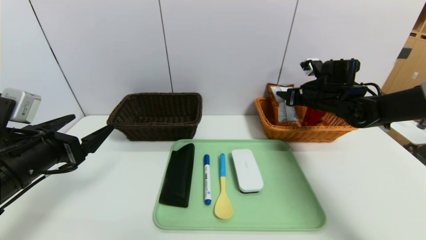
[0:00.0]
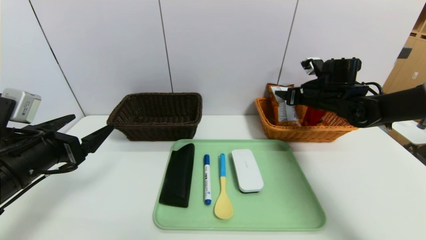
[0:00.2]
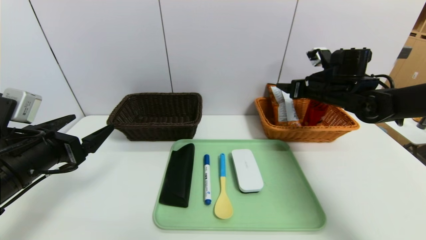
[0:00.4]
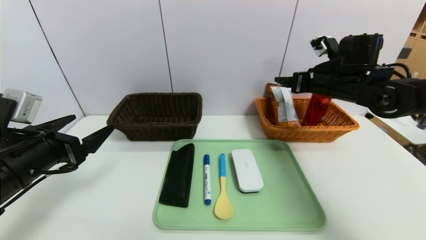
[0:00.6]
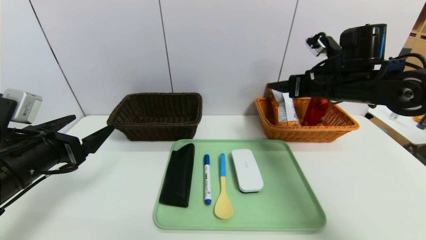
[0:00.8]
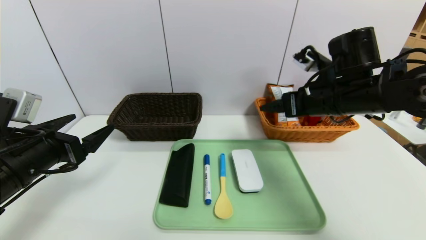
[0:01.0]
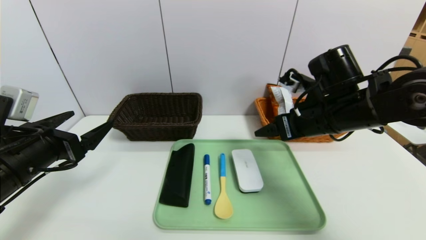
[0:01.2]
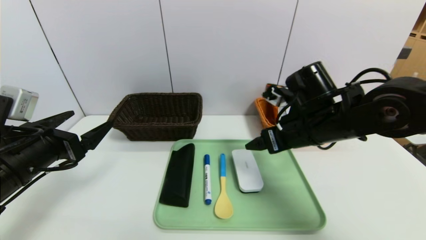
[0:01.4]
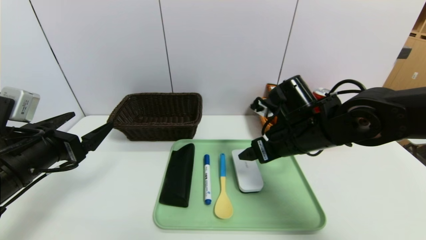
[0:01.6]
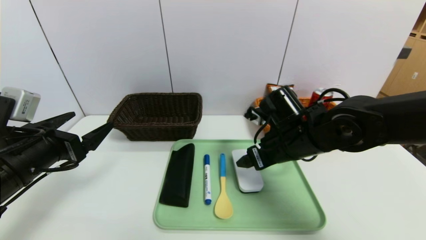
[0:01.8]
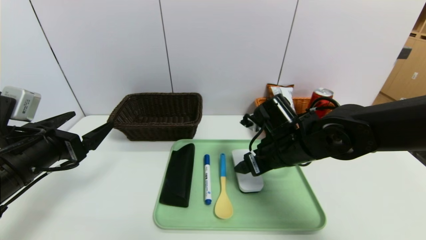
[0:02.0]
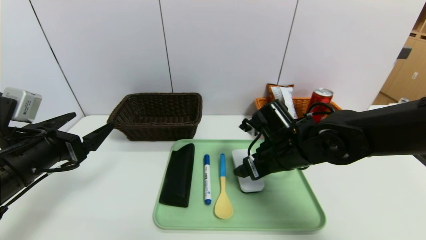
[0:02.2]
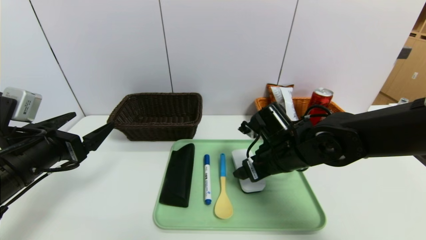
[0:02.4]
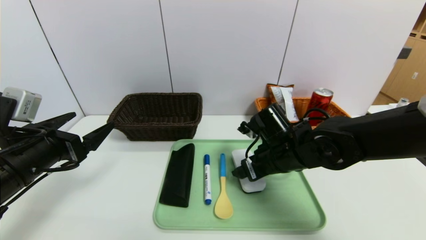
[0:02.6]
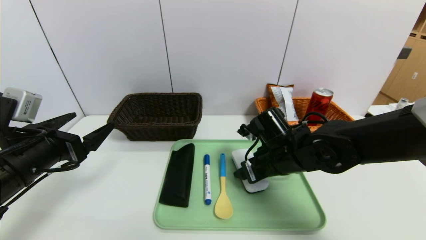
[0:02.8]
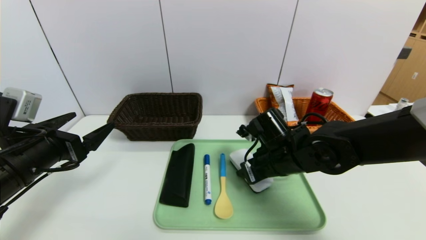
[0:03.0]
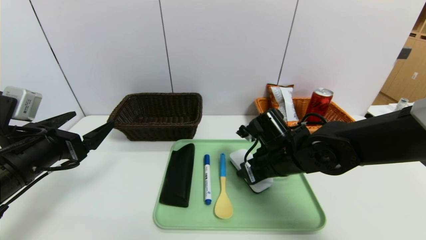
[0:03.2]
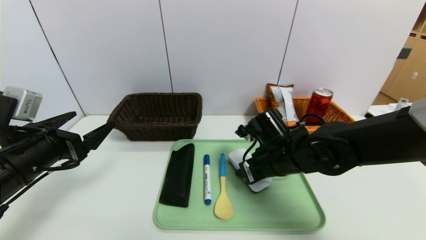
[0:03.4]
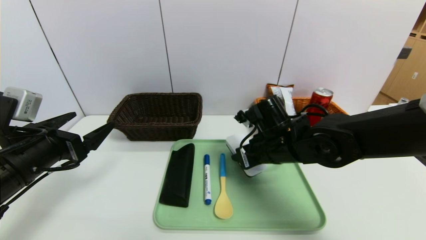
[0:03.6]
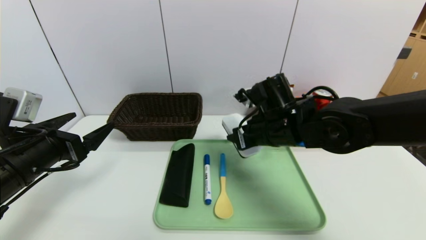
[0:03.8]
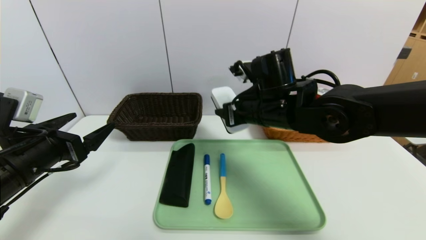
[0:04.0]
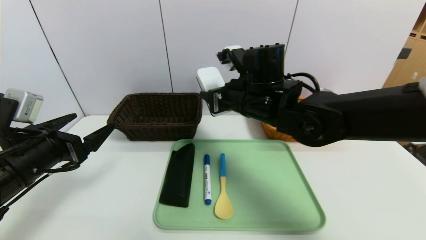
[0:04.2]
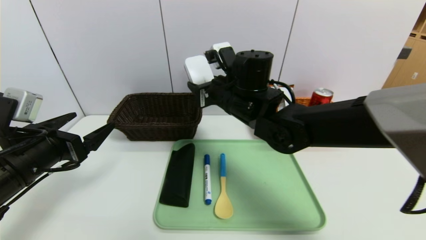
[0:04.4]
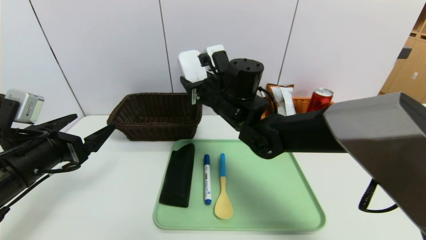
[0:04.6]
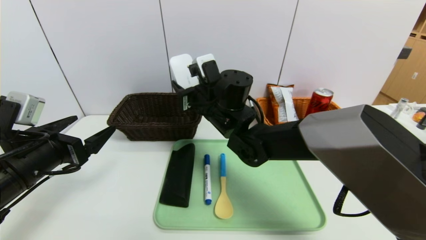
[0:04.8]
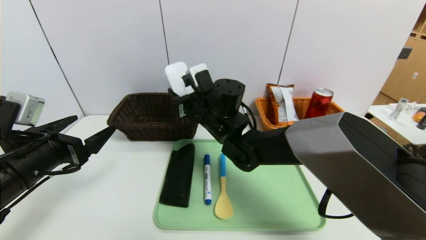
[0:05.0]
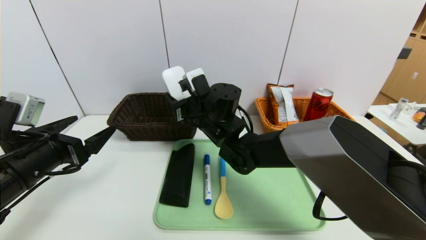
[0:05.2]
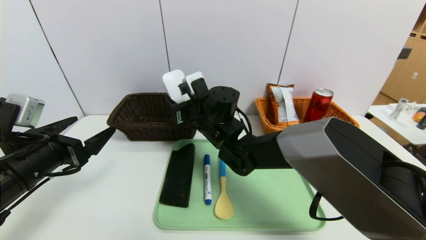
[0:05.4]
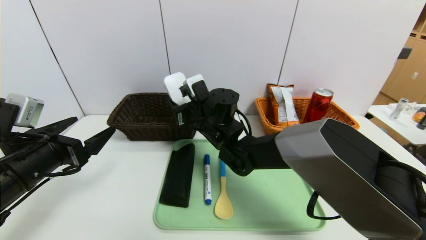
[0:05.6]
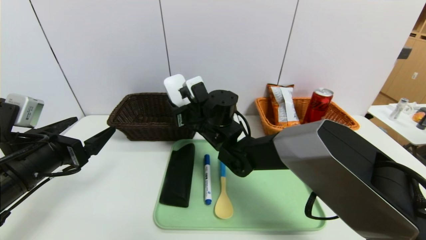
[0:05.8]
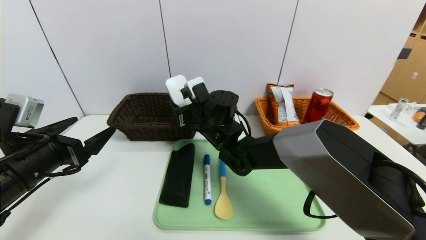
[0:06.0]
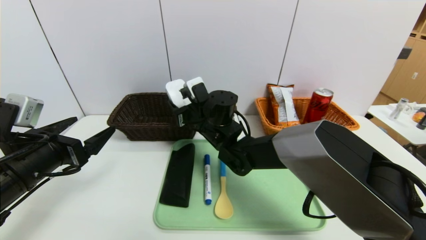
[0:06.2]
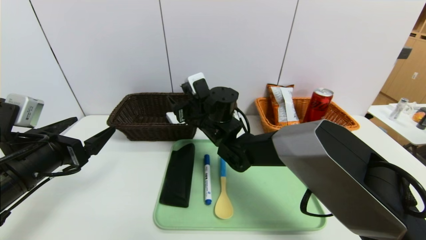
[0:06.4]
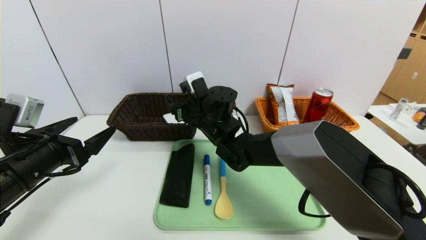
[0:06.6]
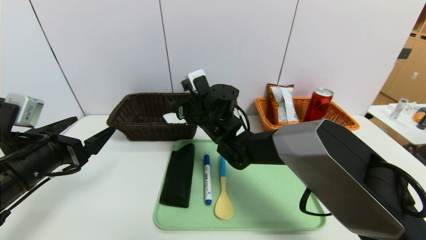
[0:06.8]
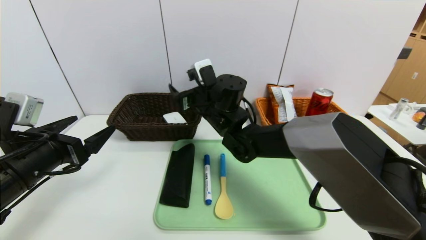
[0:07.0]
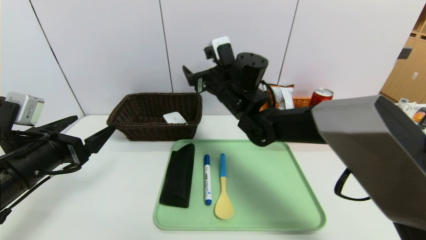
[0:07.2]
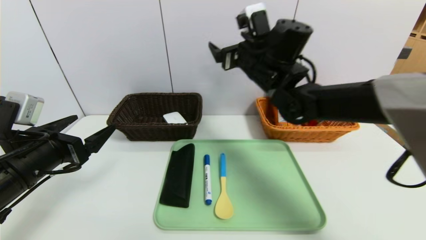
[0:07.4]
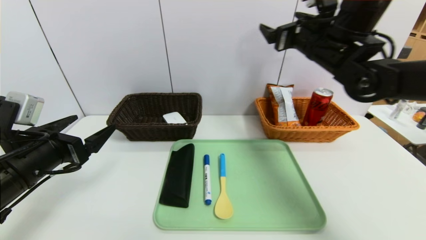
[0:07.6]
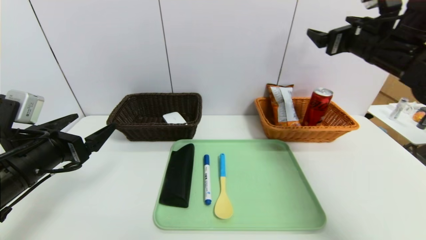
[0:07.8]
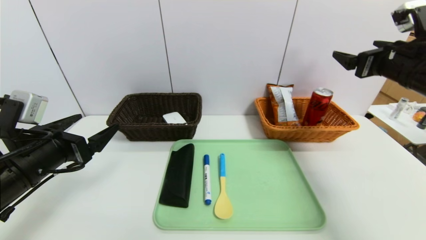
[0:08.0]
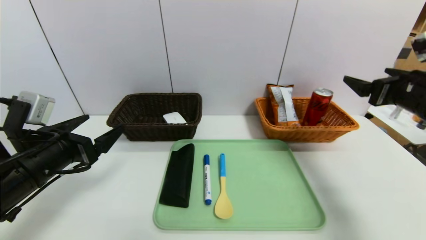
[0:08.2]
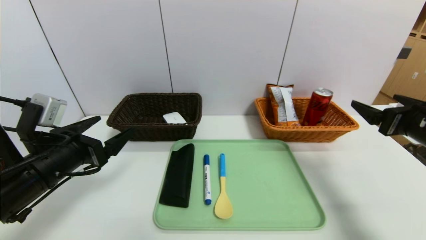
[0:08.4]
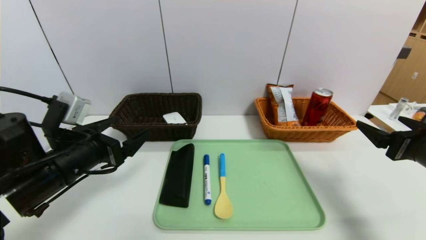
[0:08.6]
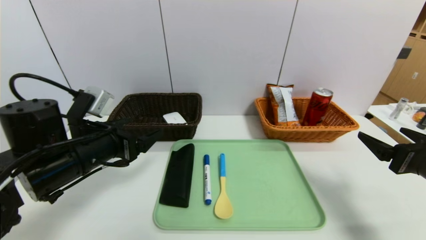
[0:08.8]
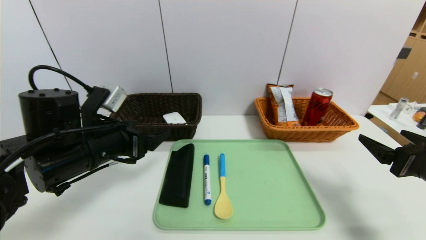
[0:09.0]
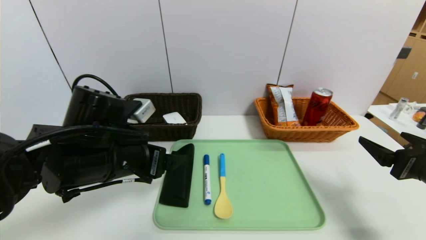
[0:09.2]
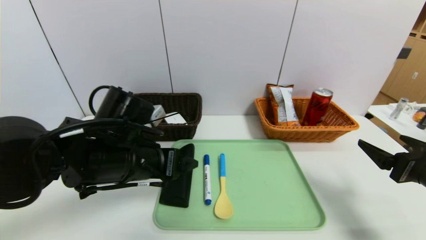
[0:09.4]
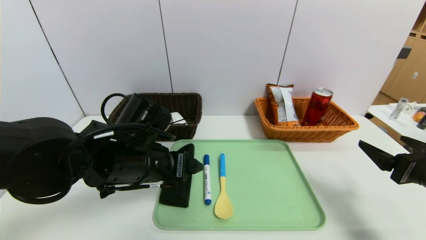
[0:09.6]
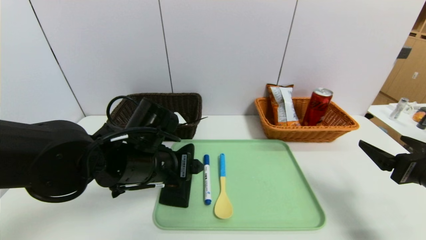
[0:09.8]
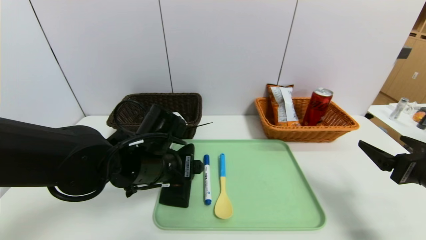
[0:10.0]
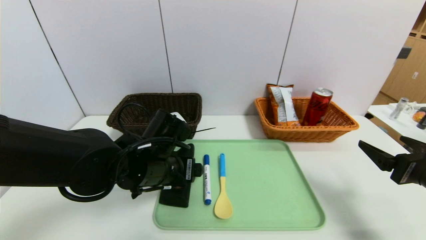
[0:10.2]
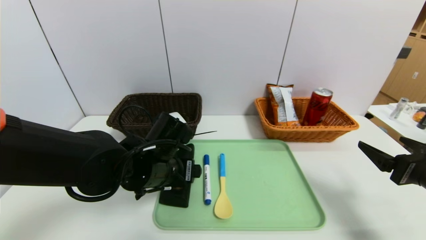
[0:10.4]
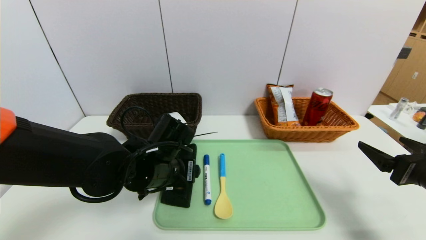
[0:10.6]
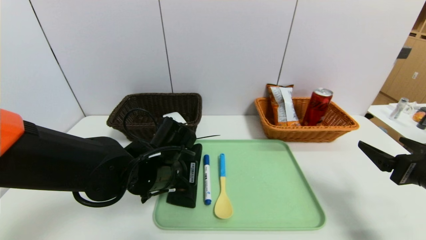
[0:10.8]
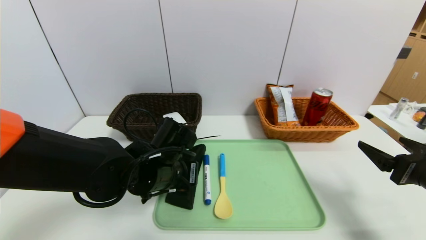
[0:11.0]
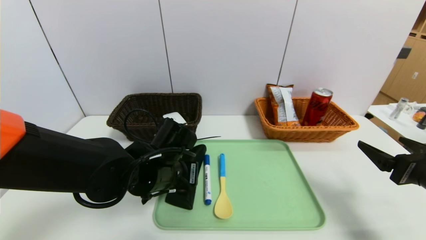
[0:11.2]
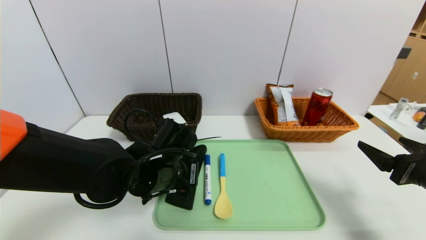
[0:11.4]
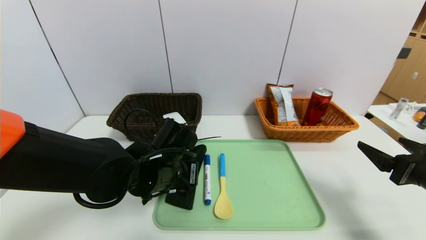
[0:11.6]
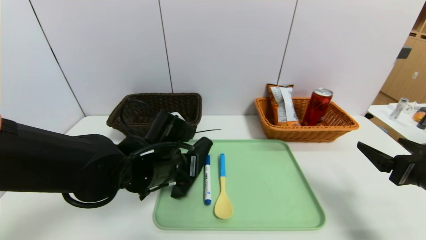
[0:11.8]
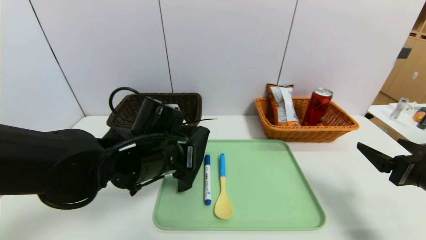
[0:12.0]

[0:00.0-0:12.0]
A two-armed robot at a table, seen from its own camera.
Task of the whole recording: place the food in the right basket with the right gripper, and place the non food items in the left basket with the left gripper.
0:00.0 to 0:01.6: The right gripper goes some 20 cm backward and to the left, and opens.
0:01.6 to 0:03.0: The right gripper is displaced downward by approximately 5 cm, and closes.
0:03.0 to 0:04.4: The right gripper goes some 15 cm upward and to the left.
0:04.4 to 0:06.0: The right gripper goes about 10 cm downward and to the left.
0:06.0 to 0:07.6: The right gripper moves to the right and upward, about 25 cm, and opens its fingers.
0:07.6 to 0:09.0: The right gripper shifts approximately 30 cm backward, downward and to the right. Meanwhile the left gripper goes some 10 cm to the right.
0:09.0 to 0:10.4: The left gripper travels to the right and downward by approximately 10 cm.
0:10.4 to 0:12.0: The left gripper closes.

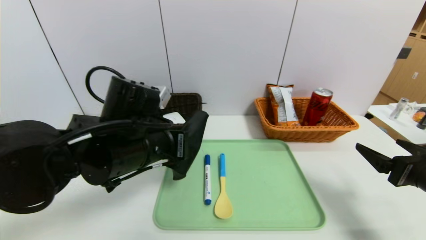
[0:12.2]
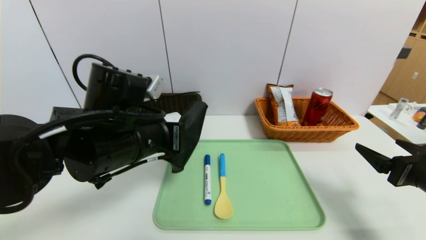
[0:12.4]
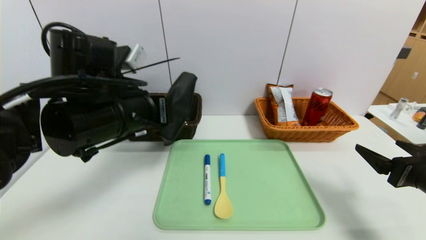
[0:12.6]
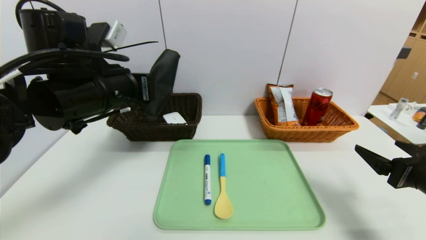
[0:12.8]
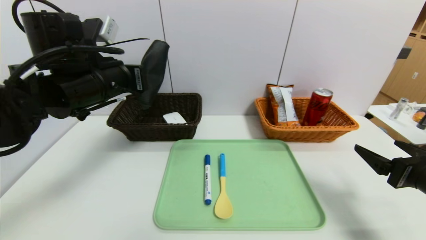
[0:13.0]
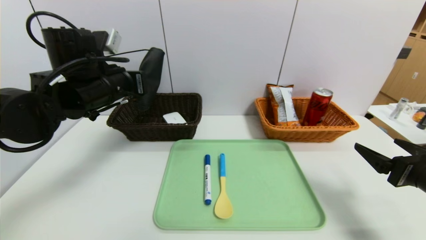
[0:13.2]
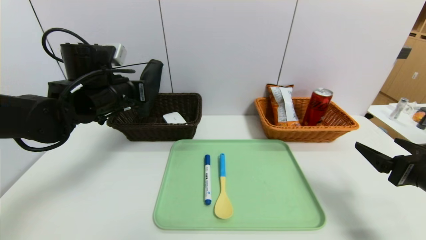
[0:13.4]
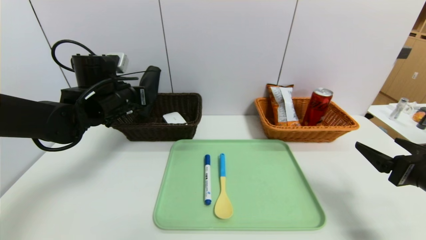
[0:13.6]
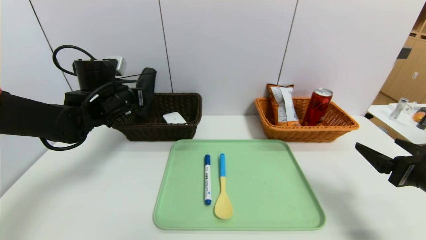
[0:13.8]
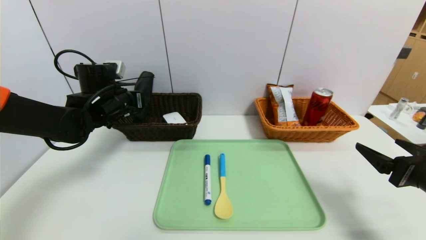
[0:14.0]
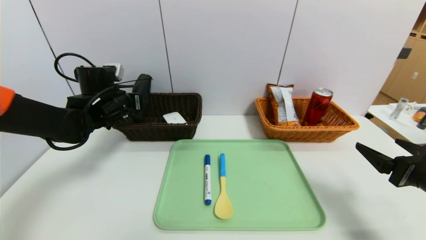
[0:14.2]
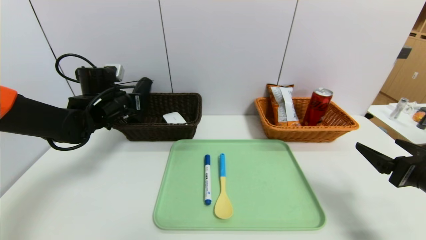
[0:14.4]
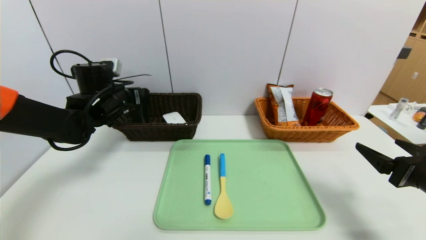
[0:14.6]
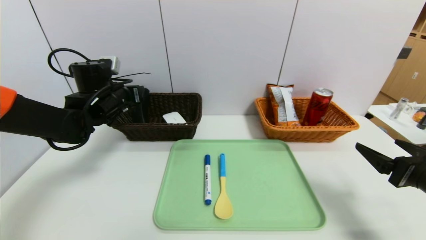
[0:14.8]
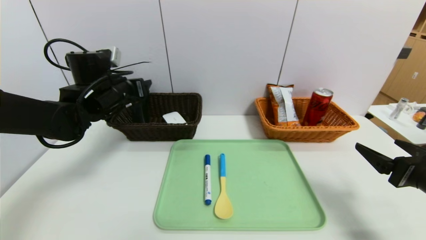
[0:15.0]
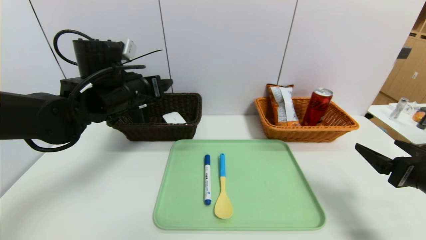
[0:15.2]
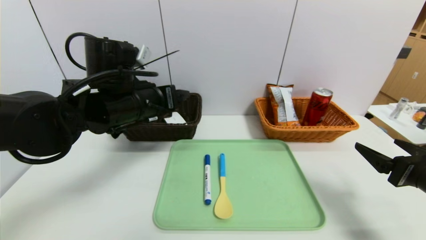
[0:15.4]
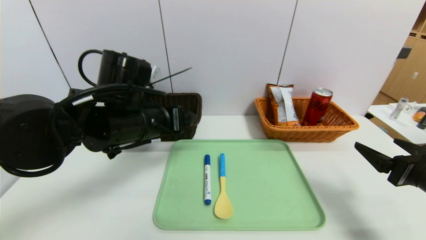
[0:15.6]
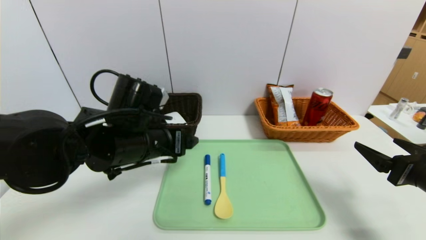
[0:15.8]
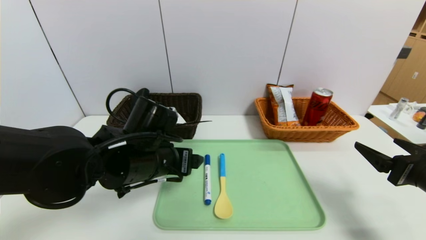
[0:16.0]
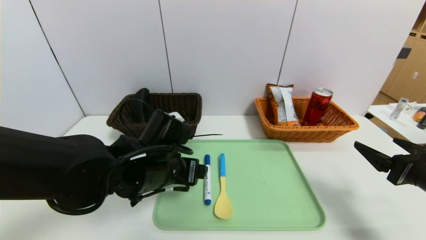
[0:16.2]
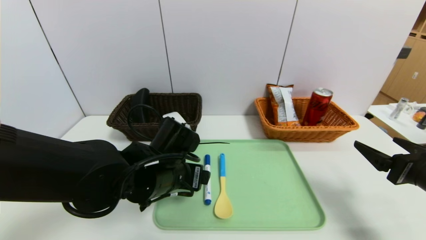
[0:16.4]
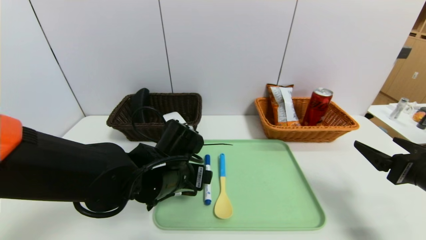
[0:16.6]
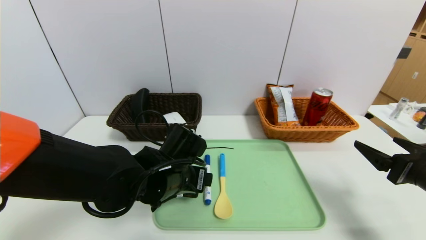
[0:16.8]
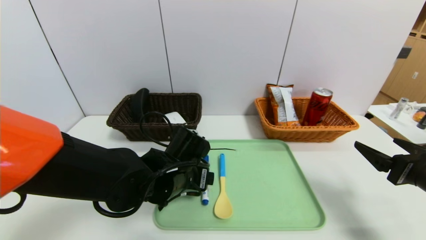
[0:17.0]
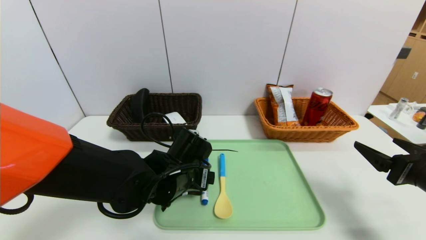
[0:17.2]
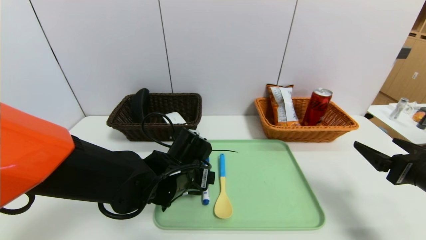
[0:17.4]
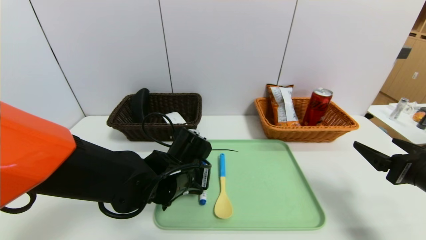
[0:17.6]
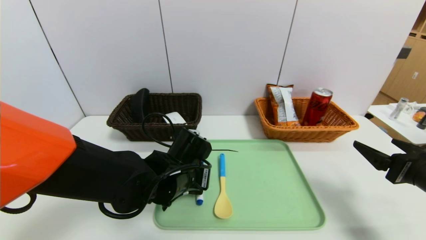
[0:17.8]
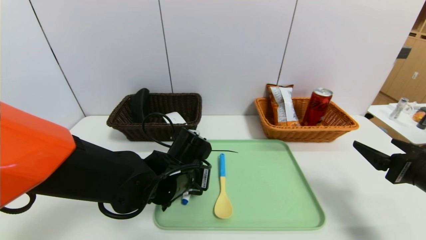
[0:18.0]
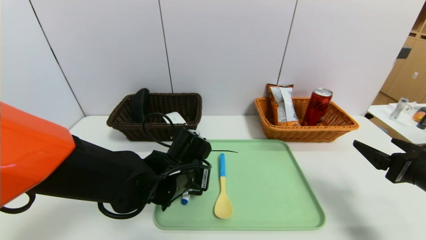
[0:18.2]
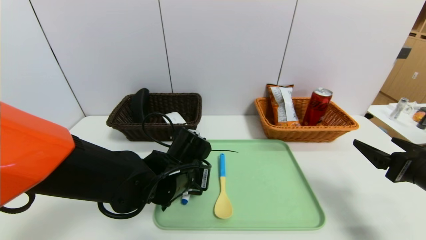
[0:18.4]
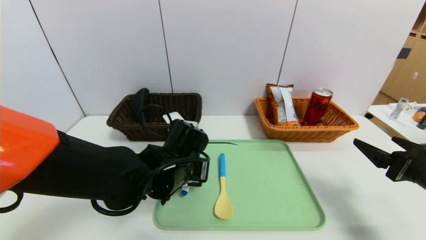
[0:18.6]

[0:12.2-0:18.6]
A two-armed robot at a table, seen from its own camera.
Task of the whole recording: place the food in the right basket with the right gripper, and place the non food items in the left basket with the left gripper.
Step, 0:12.2 to 0:15.0: Grasp the glasses case and put it in the left basket.
0:12.2 to 0:13.8: The left gripper shifts about 20 cm forward and to the left.
0:13.8 to 0:15.4: The left gripper goes about 15 cm backward and to the right, and opens its fingers.
0:15.4 to 0:17.0: The left gripper shifts some 15 cm downward and to the right.
0:17.0 to 0:18.6: The left gripper closes.
